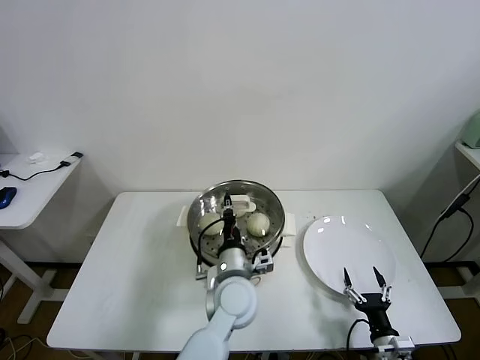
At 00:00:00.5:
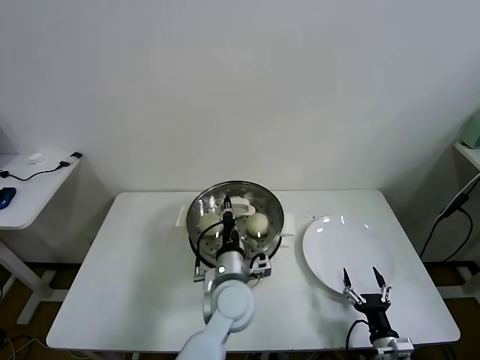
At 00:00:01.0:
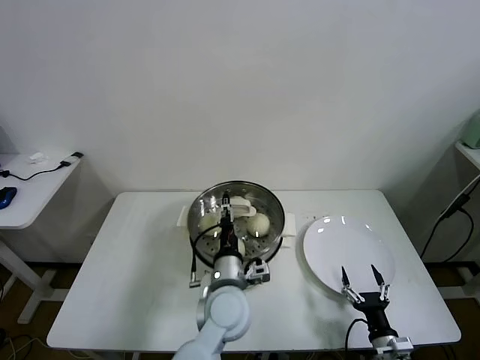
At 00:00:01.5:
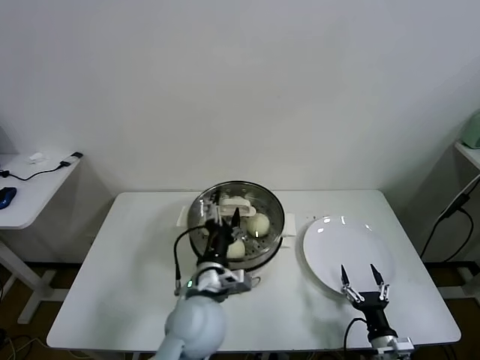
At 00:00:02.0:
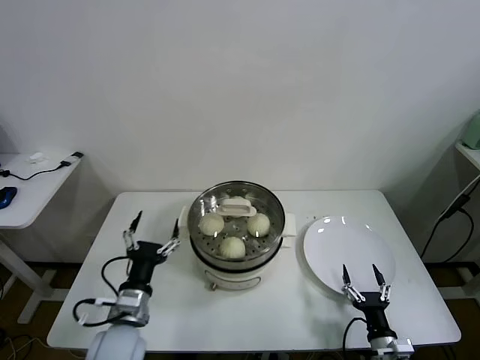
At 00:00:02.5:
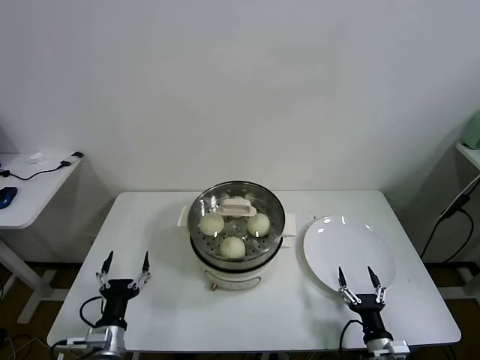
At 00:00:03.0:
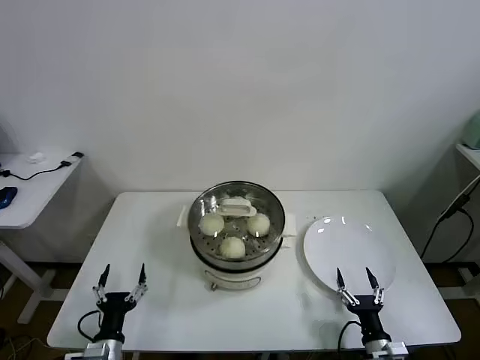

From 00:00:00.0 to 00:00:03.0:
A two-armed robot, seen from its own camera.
Task of the whole recording: take steamed baozi put them in steamer.
From 00:00:00.0 to 00:00:01.5: The left gripper heads to the left, covering some 5 cm, and opens up.
From 00:00:01.5 to 00:00:03.0: The left gripper is displaced to the left, downward and backward by approximately 30 cm.
